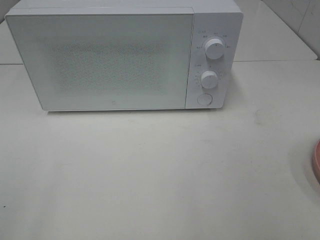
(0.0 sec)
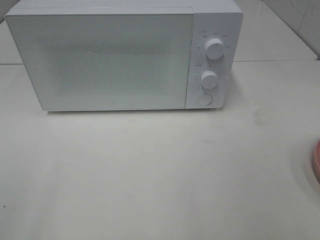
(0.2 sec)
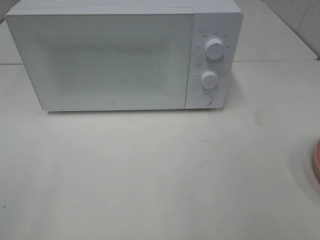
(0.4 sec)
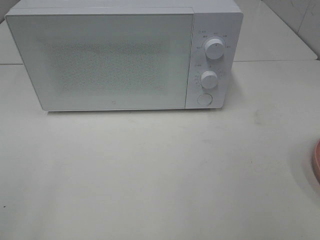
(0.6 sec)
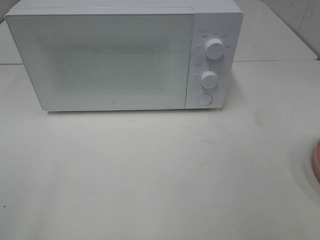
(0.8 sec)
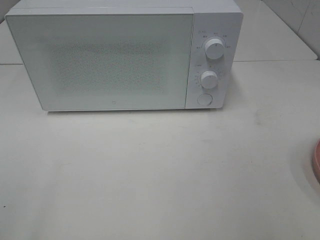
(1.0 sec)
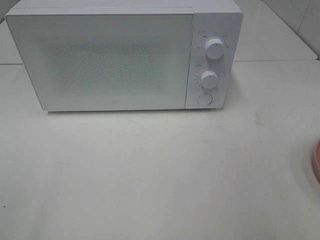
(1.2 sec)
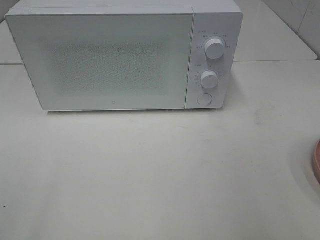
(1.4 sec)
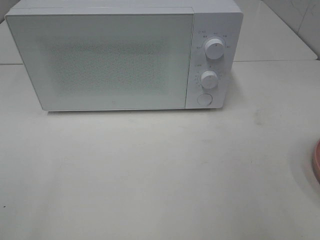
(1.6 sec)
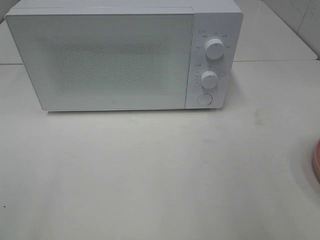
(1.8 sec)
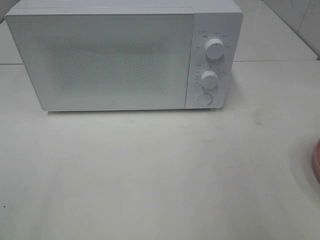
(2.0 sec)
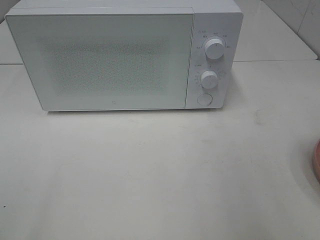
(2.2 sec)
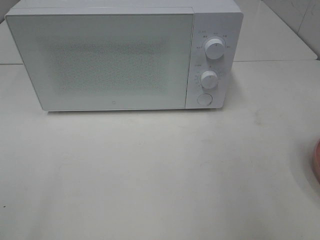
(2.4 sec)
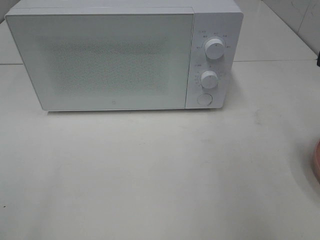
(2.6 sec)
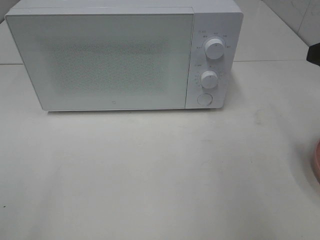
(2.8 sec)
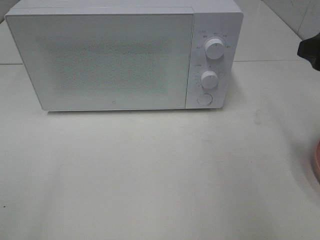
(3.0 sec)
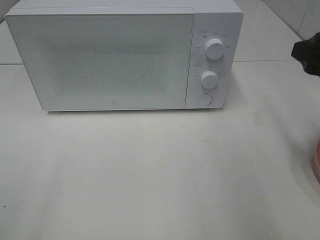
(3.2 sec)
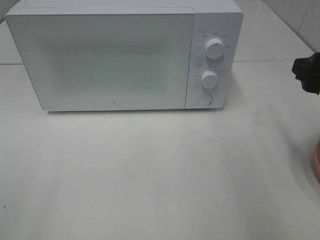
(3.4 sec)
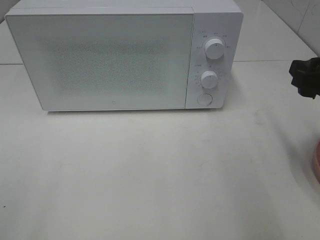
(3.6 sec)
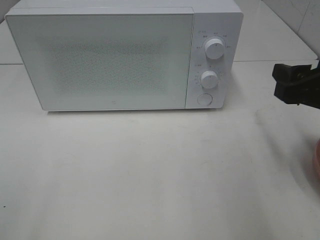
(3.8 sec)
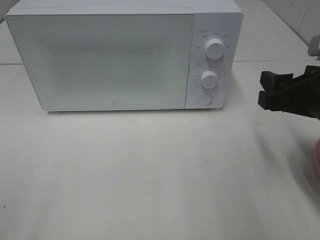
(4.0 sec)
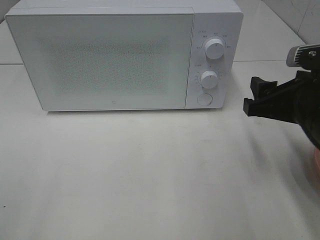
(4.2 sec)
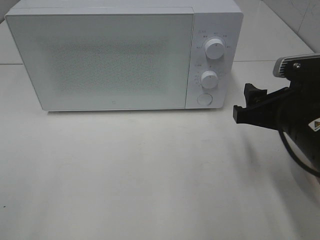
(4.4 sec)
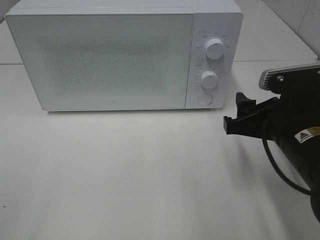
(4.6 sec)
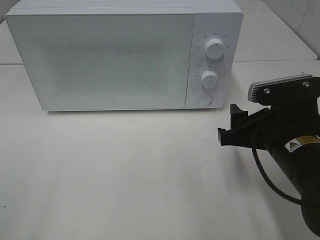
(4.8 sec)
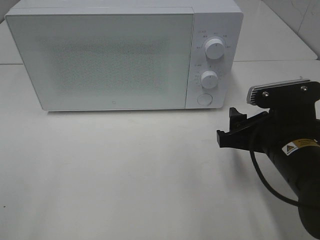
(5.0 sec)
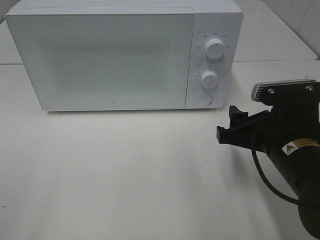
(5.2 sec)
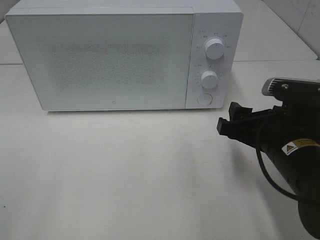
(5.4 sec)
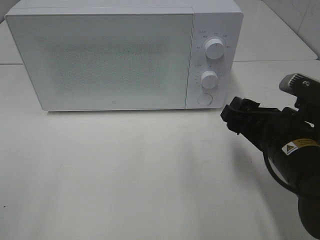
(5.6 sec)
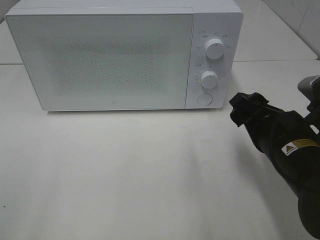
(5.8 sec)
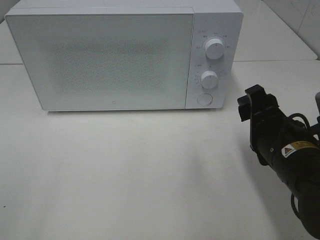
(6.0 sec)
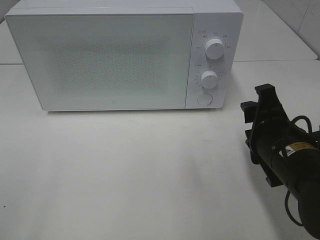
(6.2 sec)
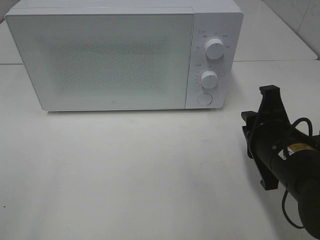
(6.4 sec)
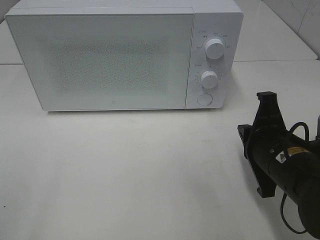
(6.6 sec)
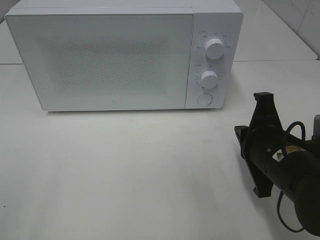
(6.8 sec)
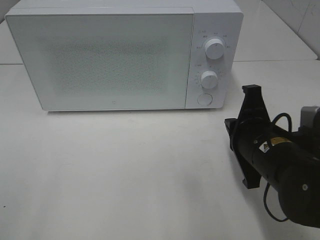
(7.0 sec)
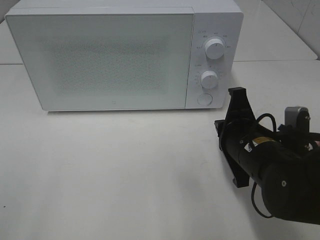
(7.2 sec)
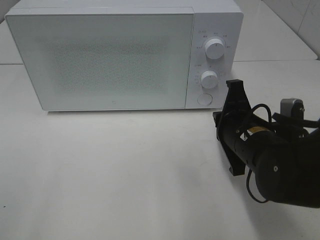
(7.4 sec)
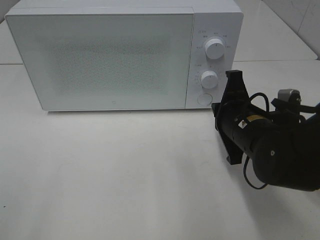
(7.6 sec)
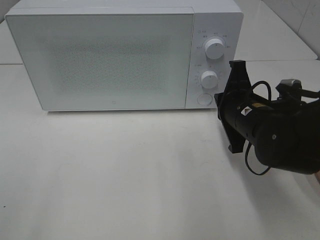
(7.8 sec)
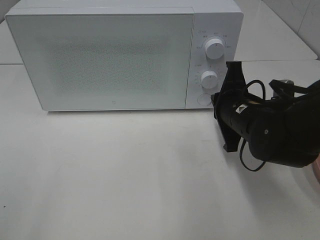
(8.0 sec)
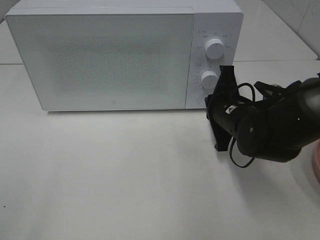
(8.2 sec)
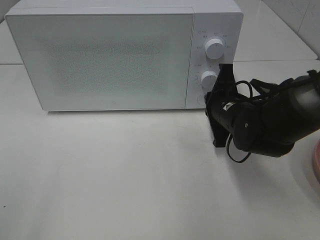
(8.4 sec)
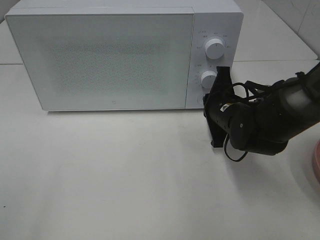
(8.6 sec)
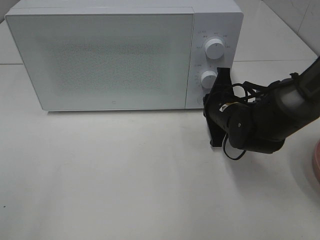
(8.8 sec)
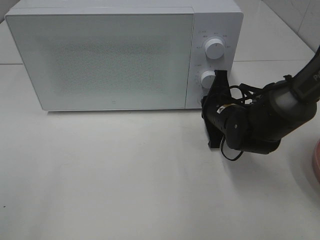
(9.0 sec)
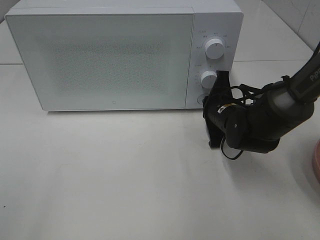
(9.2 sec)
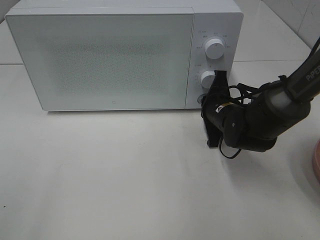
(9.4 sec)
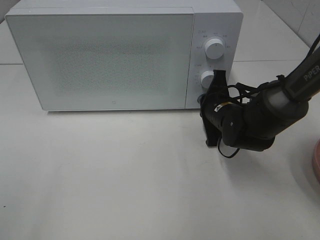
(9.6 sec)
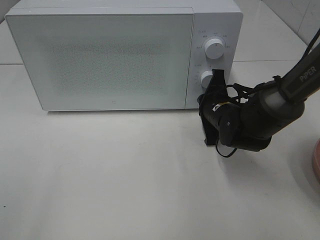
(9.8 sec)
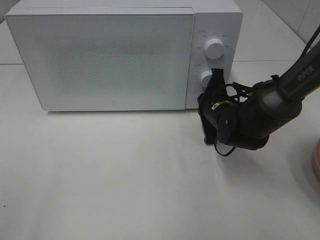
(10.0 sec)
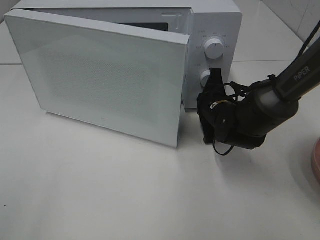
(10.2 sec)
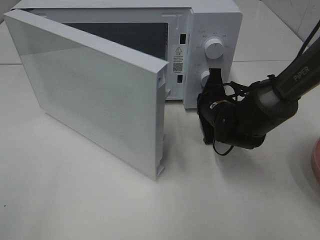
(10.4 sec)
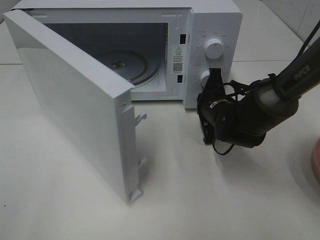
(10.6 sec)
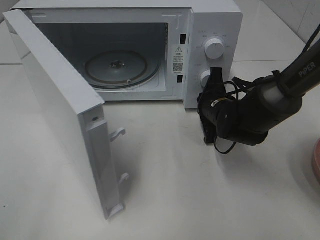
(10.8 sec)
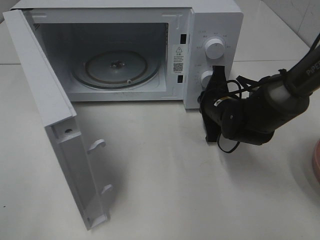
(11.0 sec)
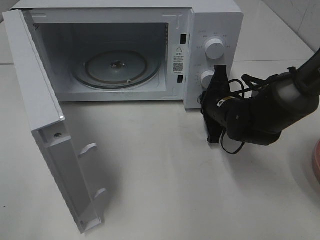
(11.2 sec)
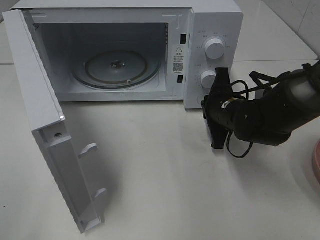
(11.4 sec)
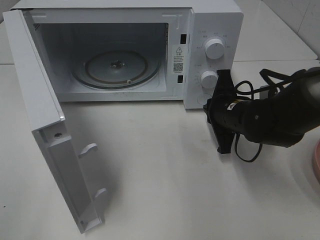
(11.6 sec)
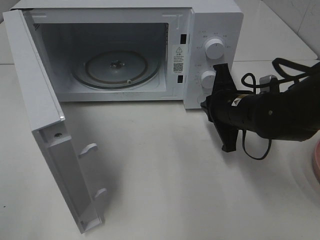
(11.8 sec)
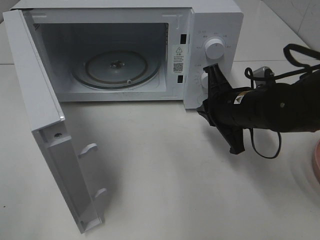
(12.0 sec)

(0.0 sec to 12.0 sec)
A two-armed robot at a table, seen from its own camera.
Task of the whole recording: Heat the burger.
Step, 0.0 sec - 11.4 sec: Right hand: press the switch.
1.6 sec - 3.0 sec: The right gripper goes some 15 cm forward.
3.0 sec - 4.4 sec: The right gripper moves downward and to the left, roughly 10 cm.
6.0 sec - 7.6 sec: The right gripper goes some 5 cm forward, and closes its fingers.
7.6 sec - 9.0 sec: The right gripper heads forward, covering some 10 cm.
10.4 sec - 12.0 sec: The right gripper shifts about 10 cm backward and upward.

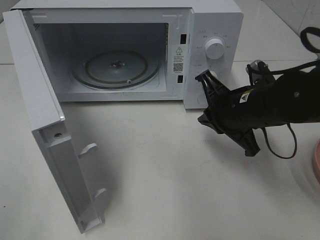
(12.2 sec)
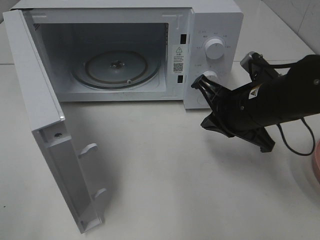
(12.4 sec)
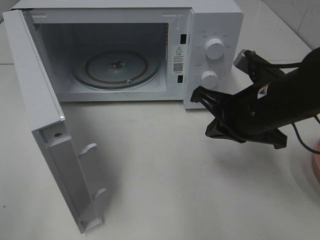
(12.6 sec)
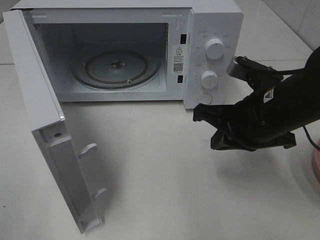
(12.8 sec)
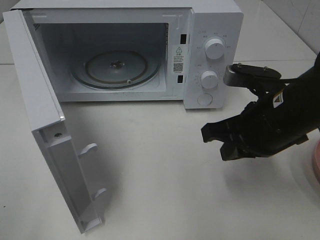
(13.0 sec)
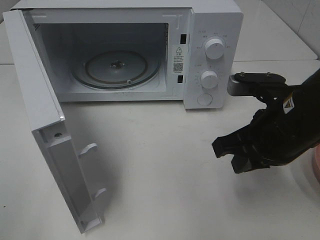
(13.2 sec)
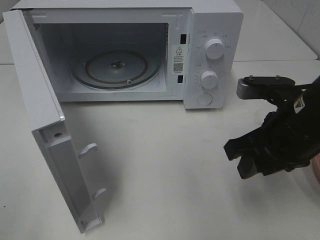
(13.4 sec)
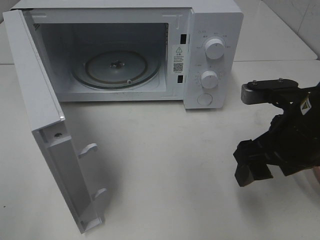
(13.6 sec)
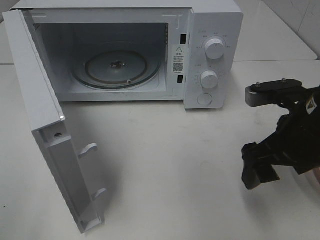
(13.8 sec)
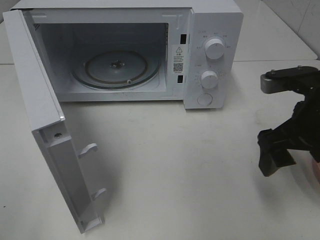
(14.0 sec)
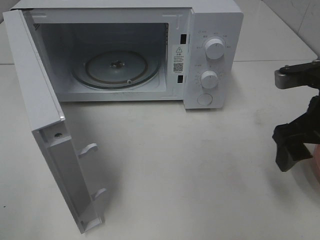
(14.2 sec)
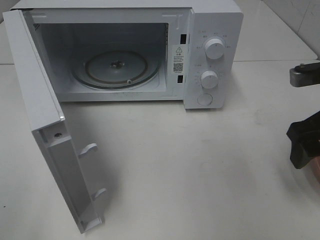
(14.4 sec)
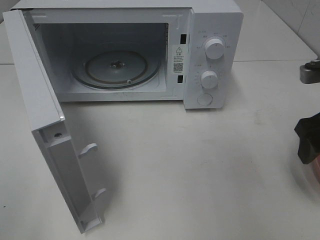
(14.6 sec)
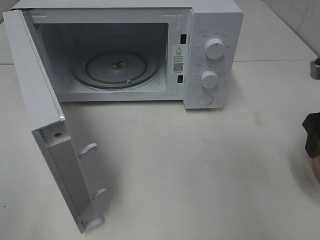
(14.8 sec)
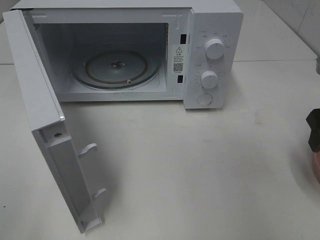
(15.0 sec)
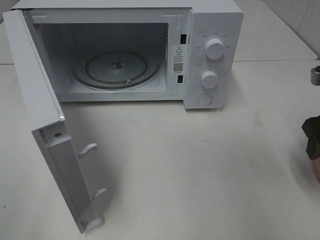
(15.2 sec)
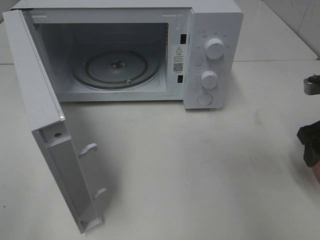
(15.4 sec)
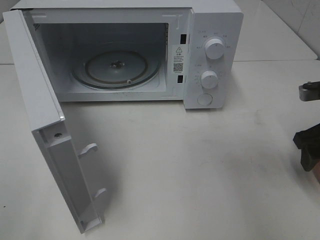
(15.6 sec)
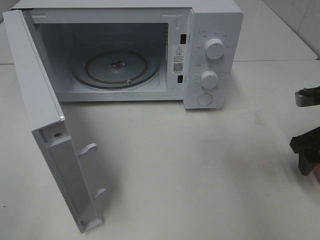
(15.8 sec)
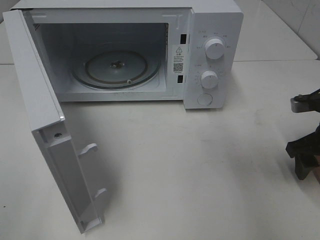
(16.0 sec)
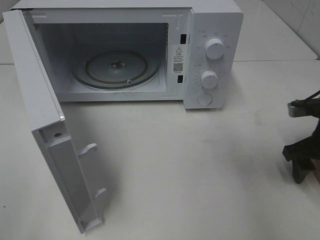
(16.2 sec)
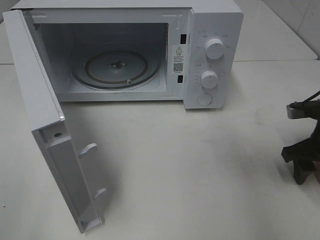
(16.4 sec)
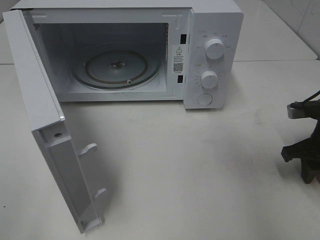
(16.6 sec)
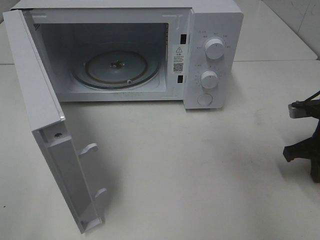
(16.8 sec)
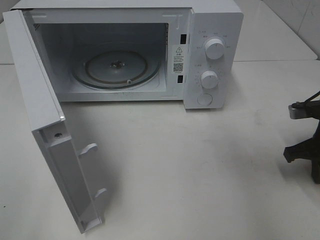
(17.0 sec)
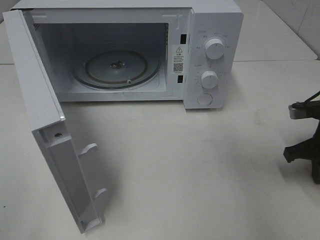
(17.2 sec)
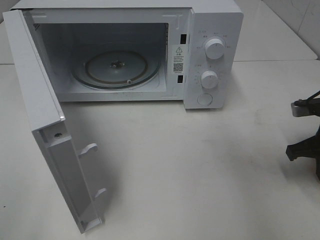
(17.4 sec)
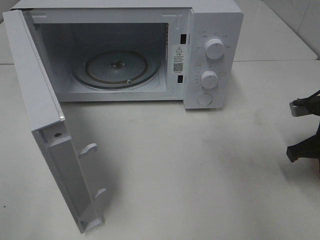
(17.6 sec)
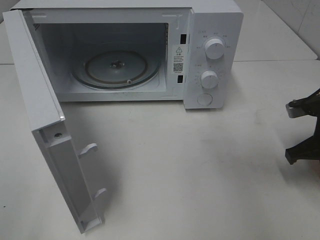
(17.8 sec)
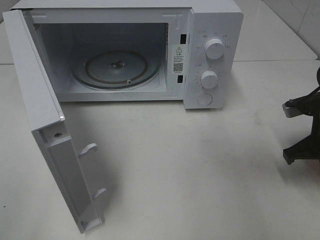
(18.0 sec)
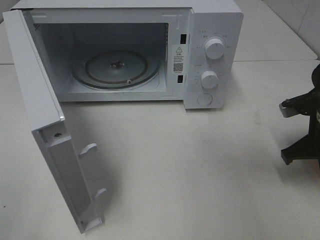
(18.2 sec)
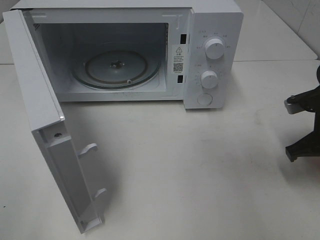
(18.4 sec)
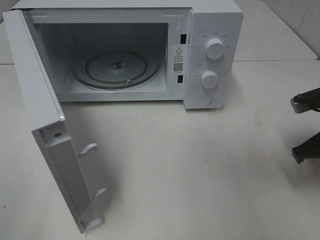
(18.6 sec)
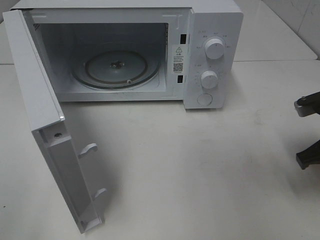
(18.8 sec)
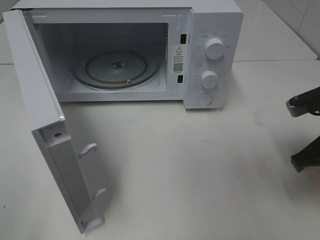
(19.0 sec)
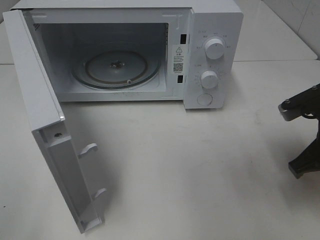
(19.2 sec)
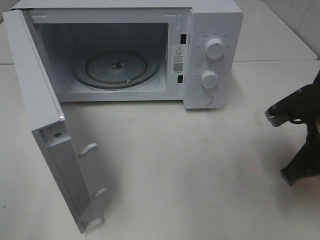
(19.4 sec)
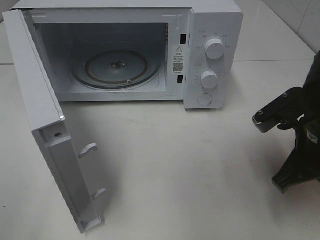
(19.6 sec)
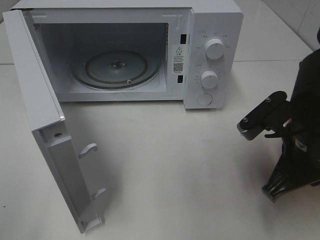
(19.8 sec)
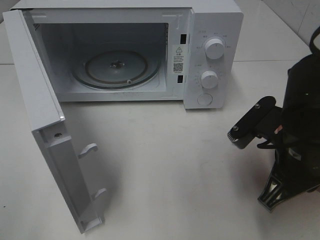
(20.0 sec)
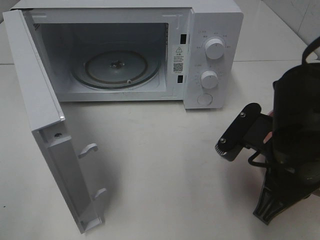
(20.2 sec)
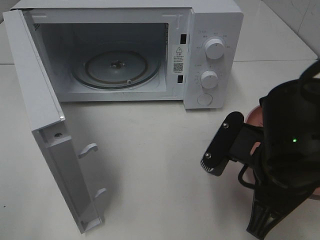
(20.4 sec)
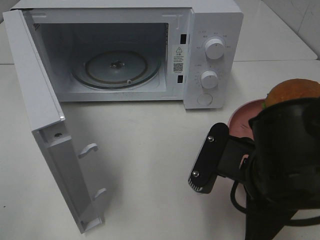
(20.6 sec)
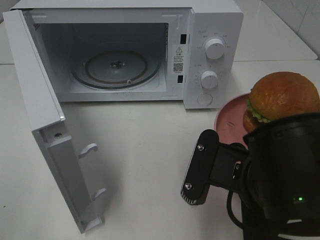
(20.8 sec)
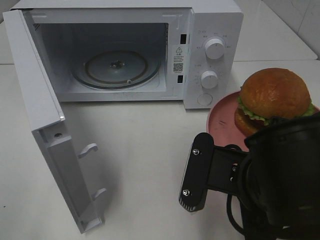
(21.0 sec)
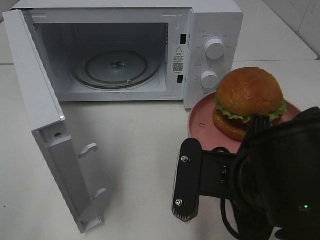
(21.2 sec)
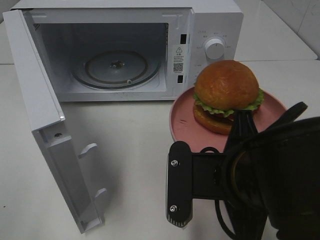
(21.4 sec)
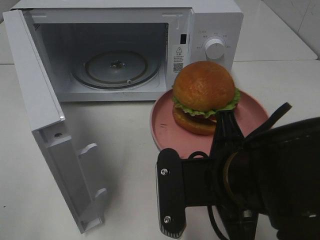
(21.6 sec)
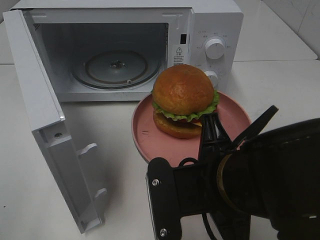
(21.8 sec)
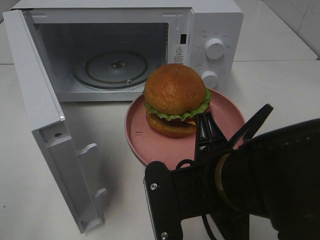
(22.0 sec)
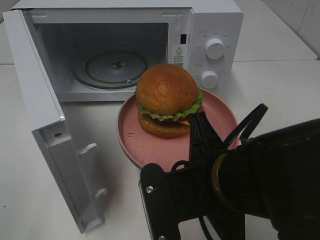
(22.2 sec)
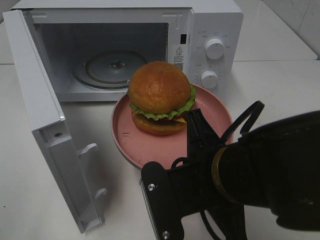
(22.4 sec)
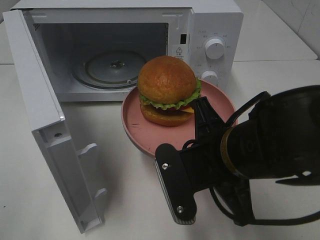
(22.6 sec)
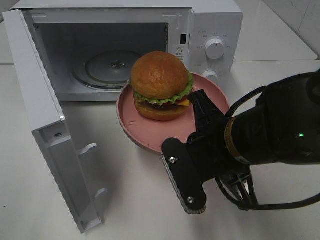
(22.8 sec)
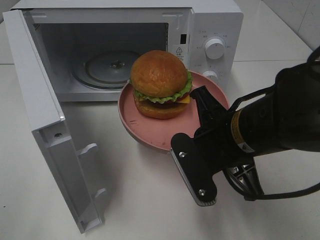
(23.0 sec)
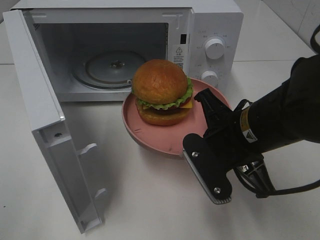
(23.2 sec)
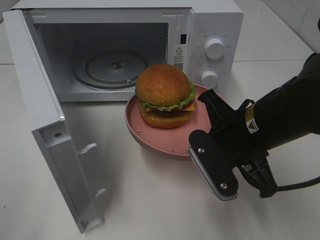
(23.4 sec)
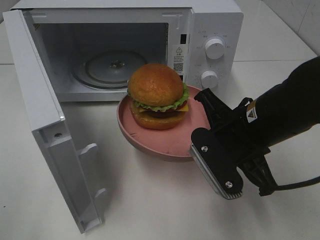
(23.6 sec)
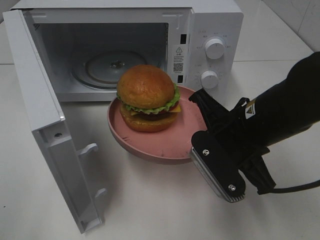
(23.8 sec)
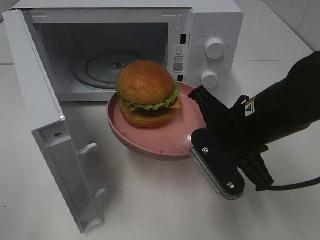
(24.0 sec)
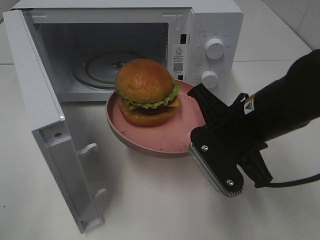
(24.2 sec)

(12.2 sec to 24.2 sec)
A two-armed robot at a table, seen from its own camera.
Task of the whole recording: Heat the burger.
Step, 12.2 sec - 17.6 sec: Right hand: grab the plate with the hamburger.
12.2 sec - 13.8 sec: The right gripper goes roughly 10 cm backward and to the right, and opens up.
13.8 sec - 15.2 sec: The right gripper travels to the right by roughly 10 cm.
15.2 sec - 16.6 sec: The right gripper is displaced downward by approximately 10 cm, and closes up.
16.6 sec - 18.2 sec: The right gripper closes up.
18.2 sec - 19.8 sec: The right gripper shifts some 10 cm to the left and backward.
19.8 sec - 21.2 sec: The right gripper travels to the left and backward by roughly 10 cm.
22.6 sec - 24.2 sec: The right gripper travels forward by about 5 cm.
